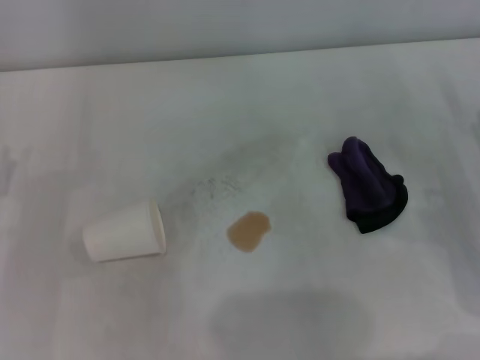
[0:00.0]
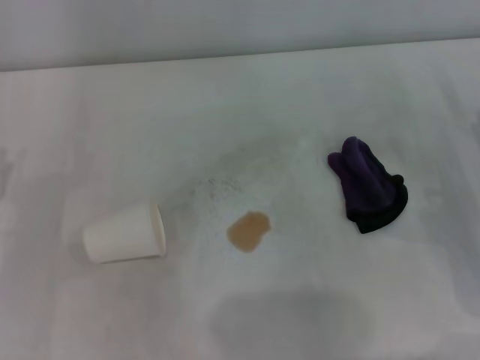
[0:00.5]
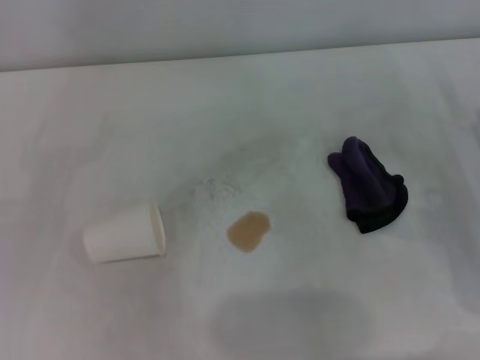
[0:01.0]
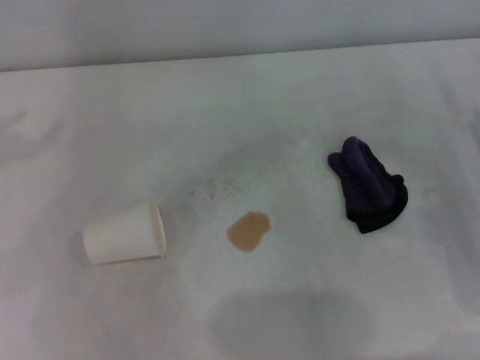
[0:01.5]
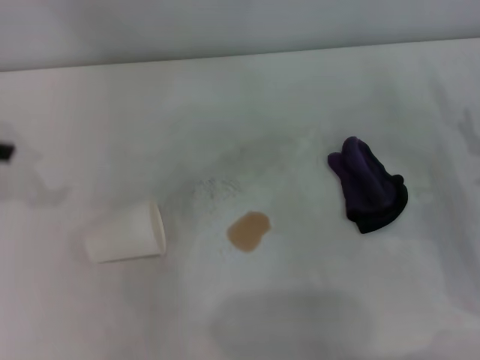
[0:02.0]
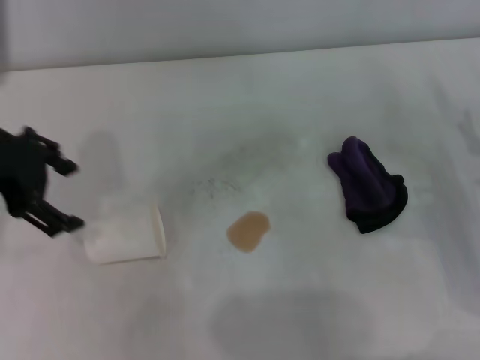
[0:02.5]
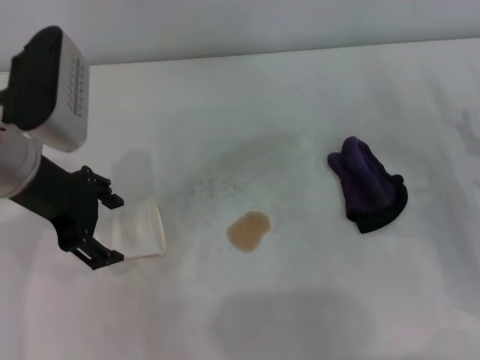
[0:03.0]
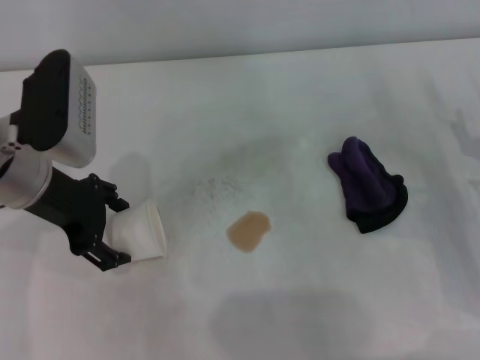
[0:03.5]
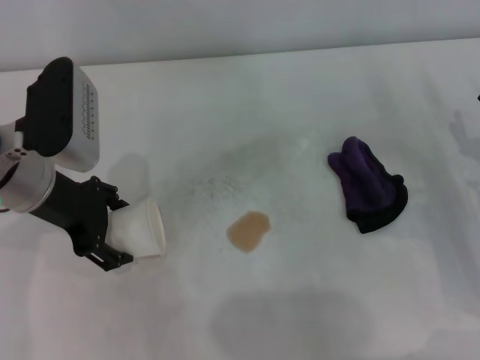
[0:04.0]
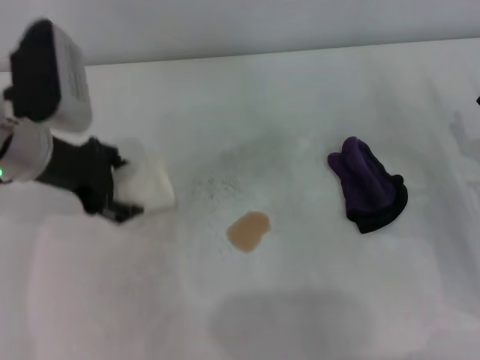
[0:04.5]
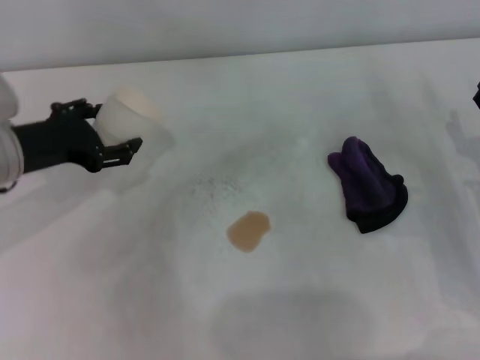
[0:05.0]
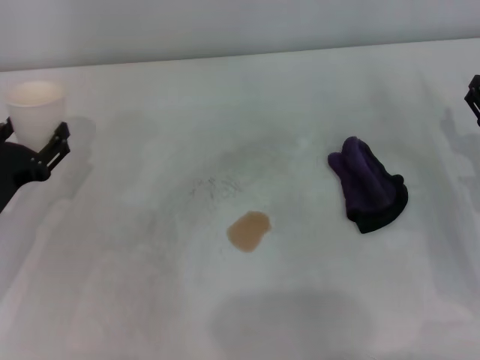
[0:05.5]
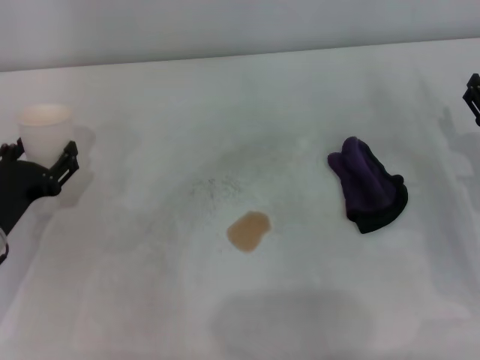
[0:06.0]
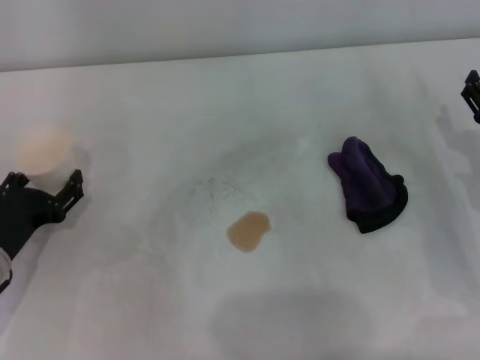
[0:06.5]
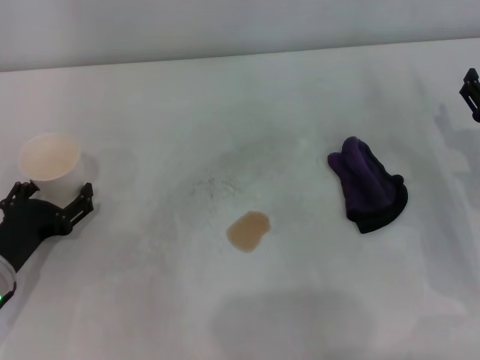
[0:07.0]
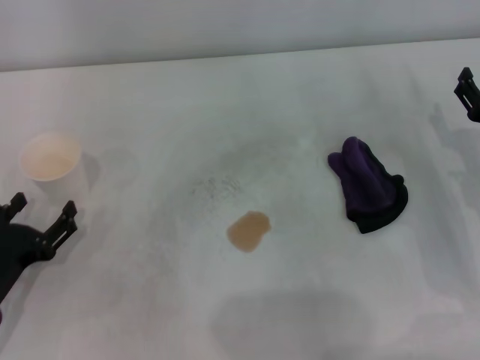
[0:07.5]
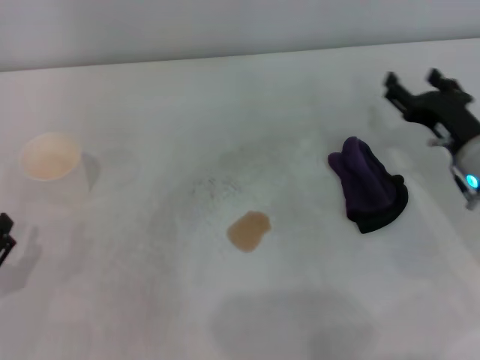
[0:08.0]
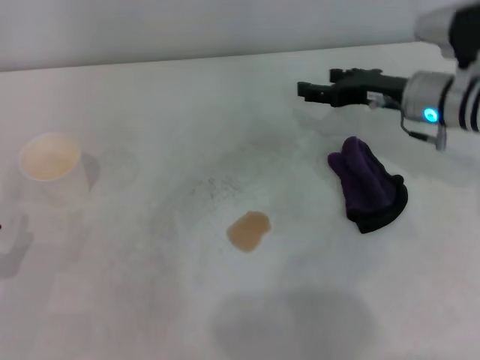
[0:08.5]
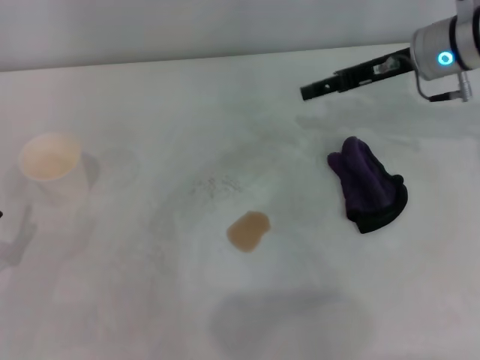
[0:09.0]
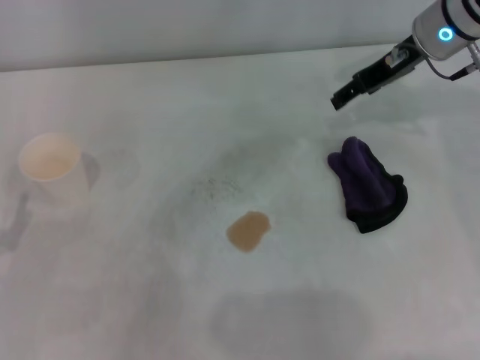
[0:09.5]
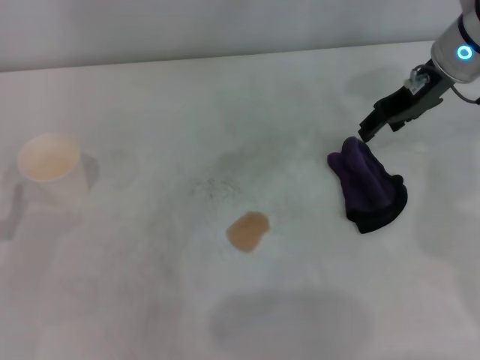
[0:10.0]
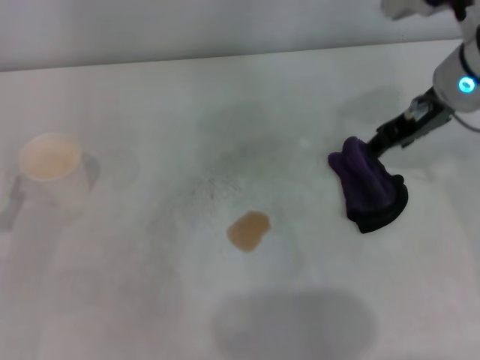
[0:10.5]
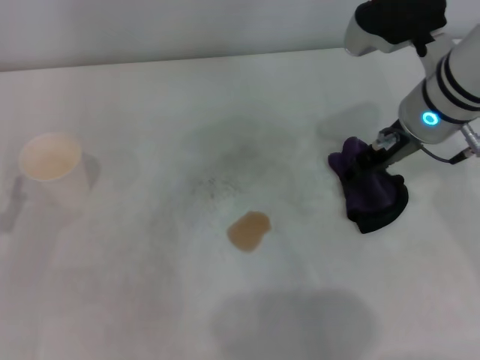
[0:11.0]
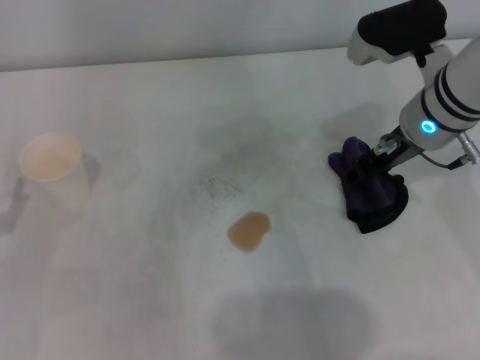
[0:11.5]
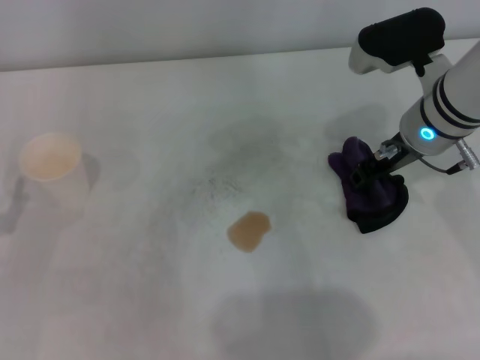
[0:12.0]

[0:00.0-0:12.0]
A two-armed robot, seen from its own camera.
Step, 0:00.0 to 0:04.0: Grasp the paper cup with the left gripper.
Step, 0:04.5 to 0:07.0: Stand the paper cup upright with the left gripper.
0:02.0 to 0:04.0: The left gripper shifts about 15 cm to the right and downward.
0:04.0 to 0:06.0: The left gripper heads downward, to the left and backward, covering some 15 cm.
0:06.0 to 0:08.0: The left gripper heads backward, covering roughly 10 cm; the right gripper ends up roughly 5 cm from where it was.
0:08.0 to 0:10.0: The right gripper goes about 20 cm upward and forward.
0:10.0 to 0:12.0: The right gripper moves backward, some 5 cm.

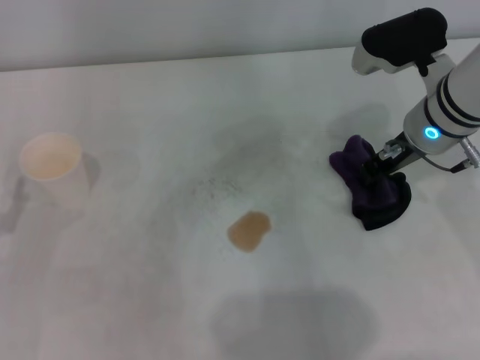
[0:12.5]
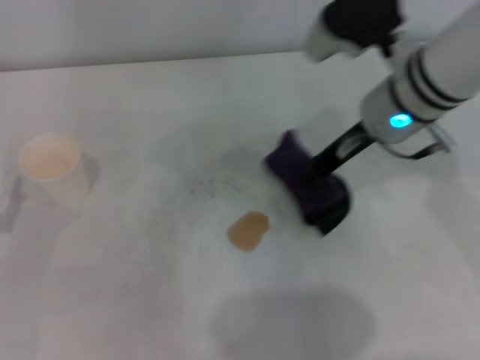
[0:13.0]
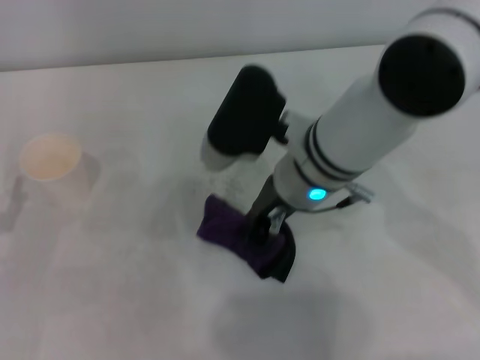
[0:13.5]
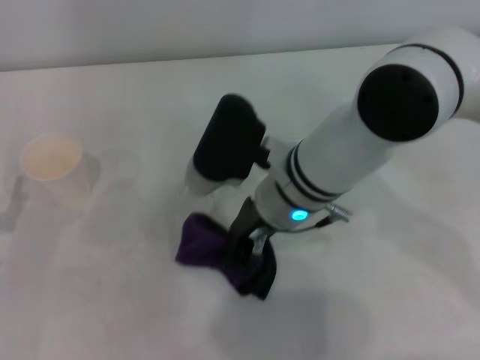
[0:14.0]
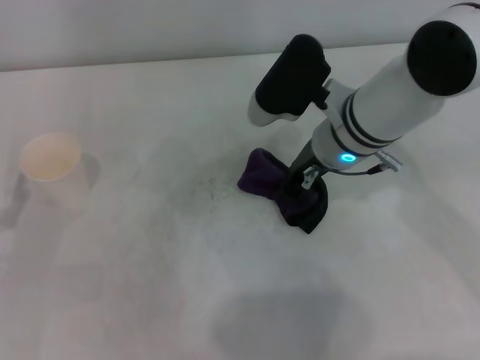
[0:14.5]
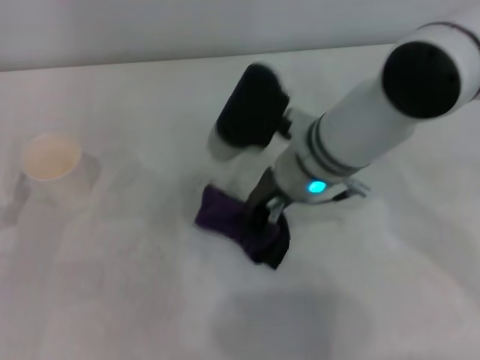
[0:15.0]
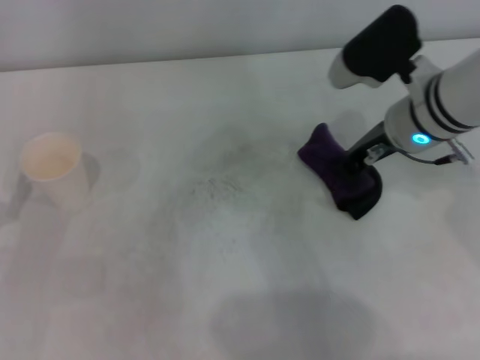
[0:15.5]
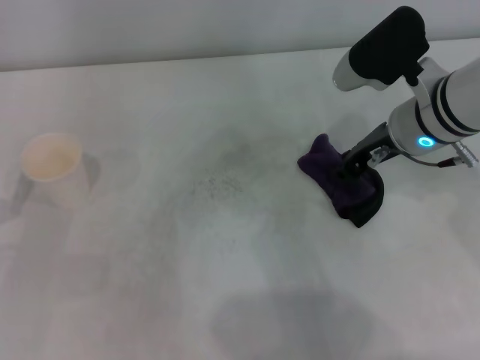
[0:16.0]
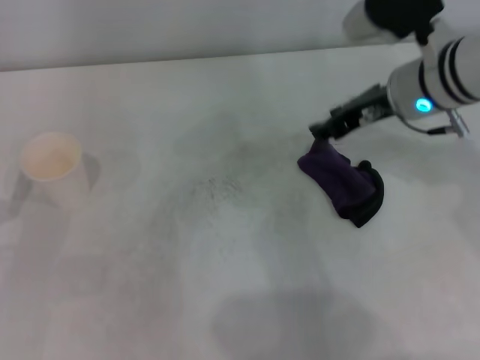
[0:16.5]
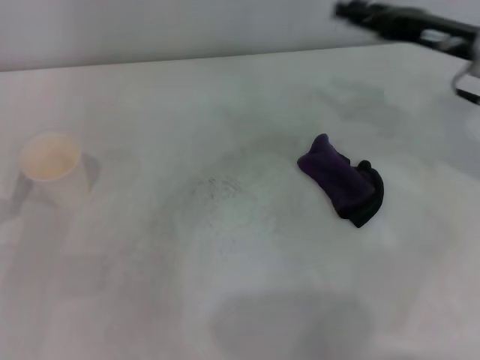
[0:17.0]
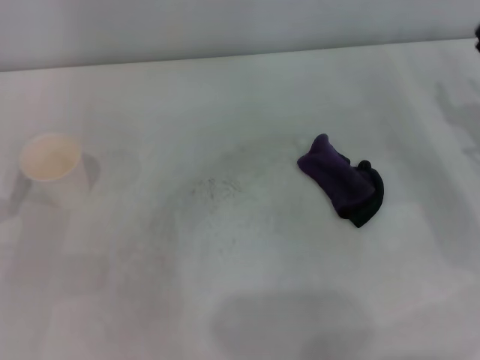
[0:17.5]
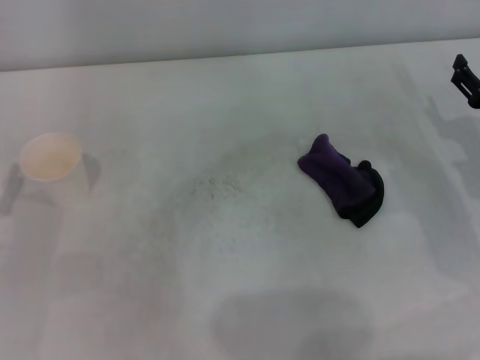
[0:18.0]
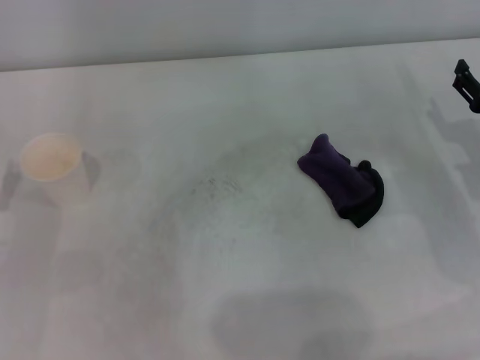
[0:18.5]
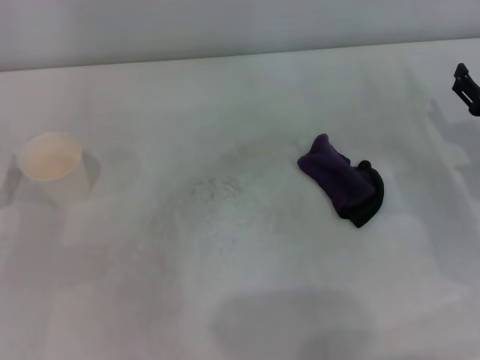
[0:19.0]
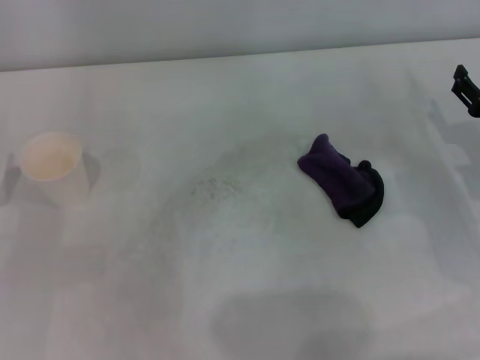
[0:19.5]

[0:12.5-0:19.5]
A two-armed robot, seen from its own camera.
Step, 0:12.5 to 0:15.0: Wipe the stains off the table with the right gripper.
0:12.5 to 0:14.5: The right gripper heads to the left, covering about 10 cm.
0:14.5 to 0:16.0: The right gripper shifts roughly 5 cm to the right.
0:16.0 to 0:17.5: The right gripper moves to the right and downward, some 15 cm, and opens its fingers.
